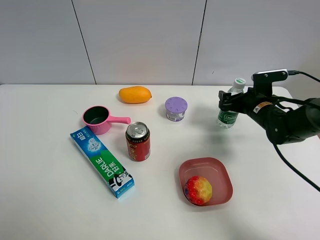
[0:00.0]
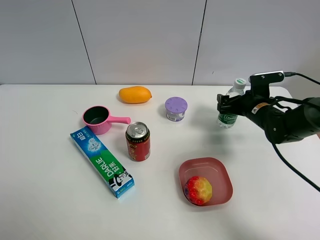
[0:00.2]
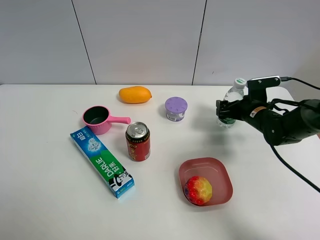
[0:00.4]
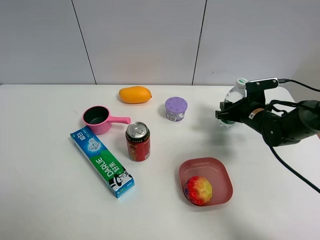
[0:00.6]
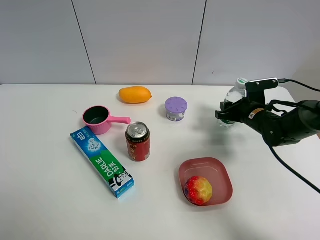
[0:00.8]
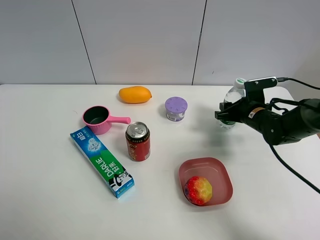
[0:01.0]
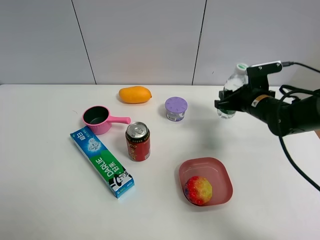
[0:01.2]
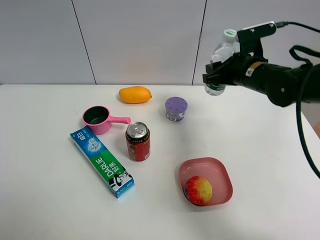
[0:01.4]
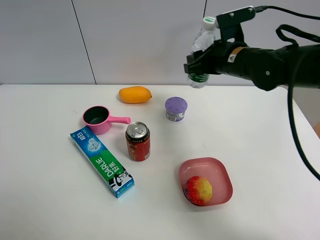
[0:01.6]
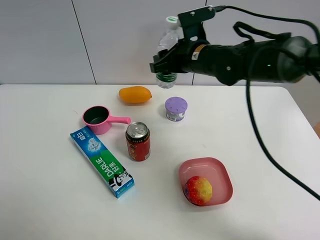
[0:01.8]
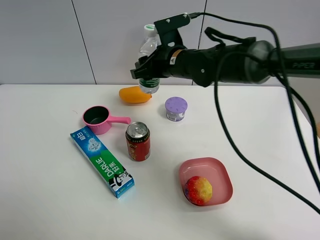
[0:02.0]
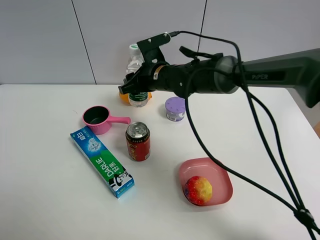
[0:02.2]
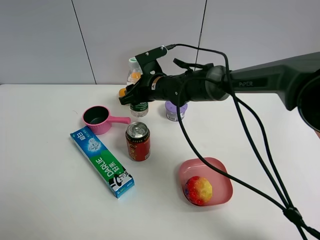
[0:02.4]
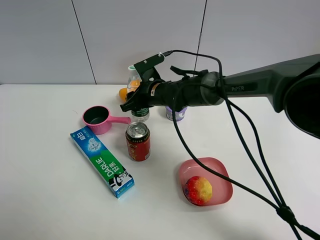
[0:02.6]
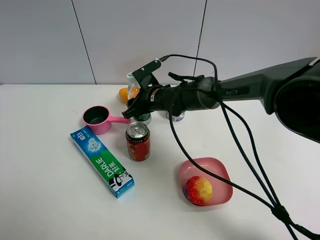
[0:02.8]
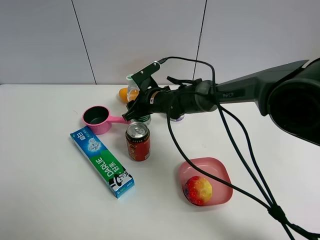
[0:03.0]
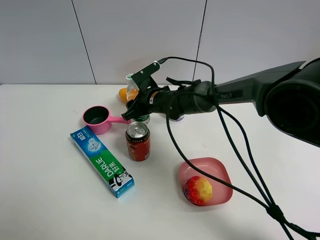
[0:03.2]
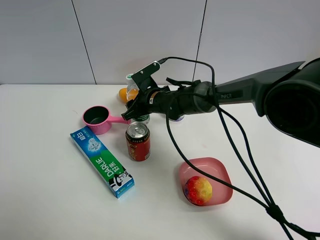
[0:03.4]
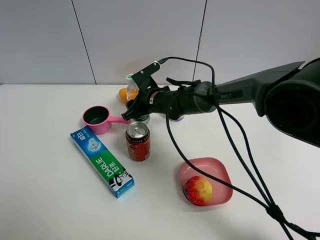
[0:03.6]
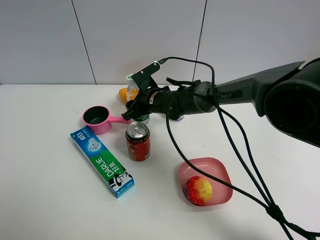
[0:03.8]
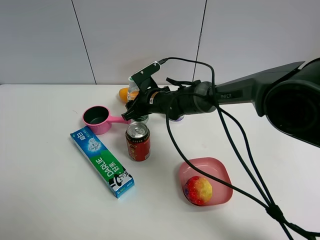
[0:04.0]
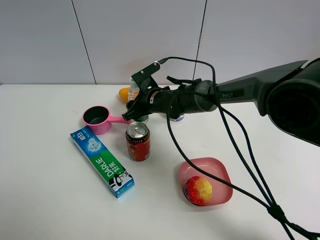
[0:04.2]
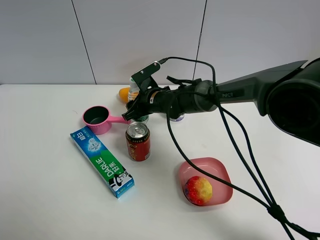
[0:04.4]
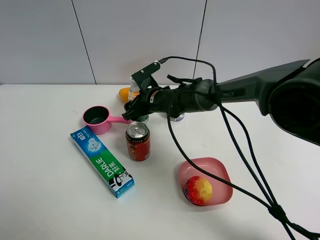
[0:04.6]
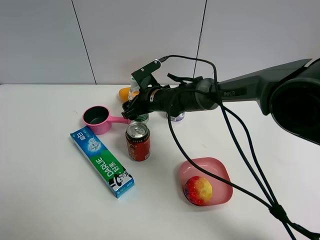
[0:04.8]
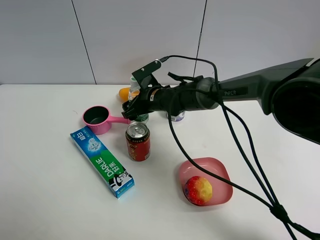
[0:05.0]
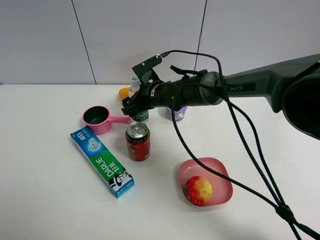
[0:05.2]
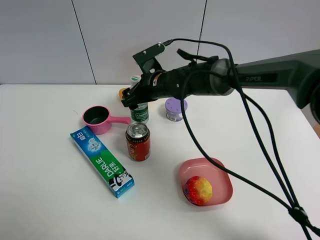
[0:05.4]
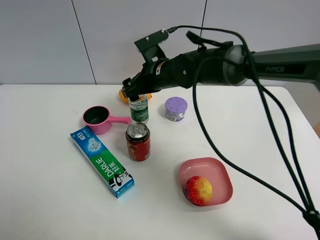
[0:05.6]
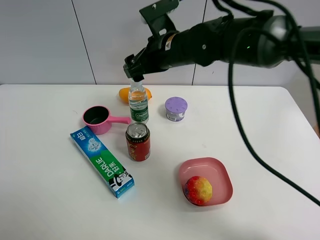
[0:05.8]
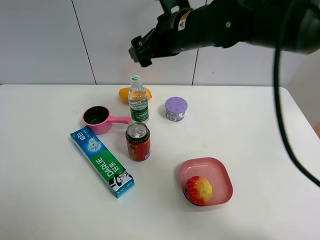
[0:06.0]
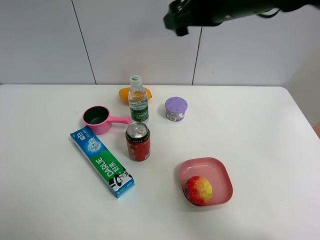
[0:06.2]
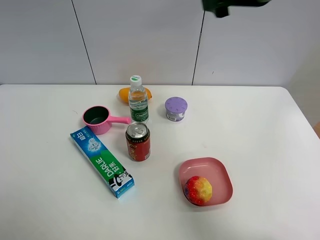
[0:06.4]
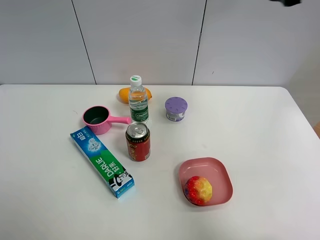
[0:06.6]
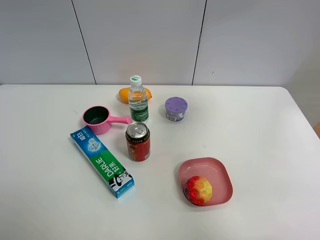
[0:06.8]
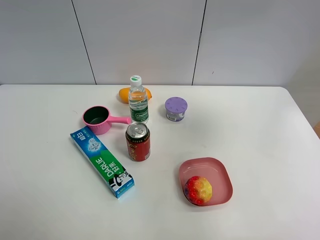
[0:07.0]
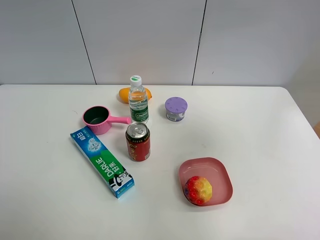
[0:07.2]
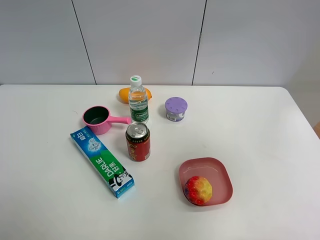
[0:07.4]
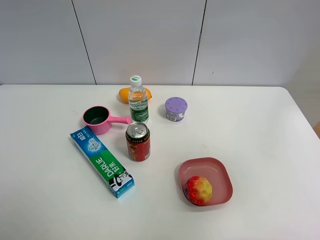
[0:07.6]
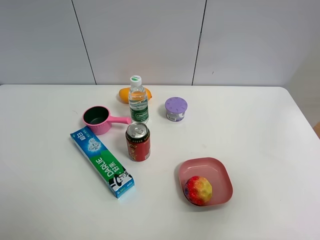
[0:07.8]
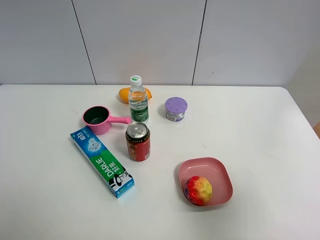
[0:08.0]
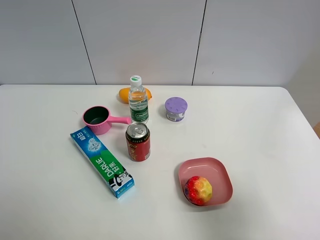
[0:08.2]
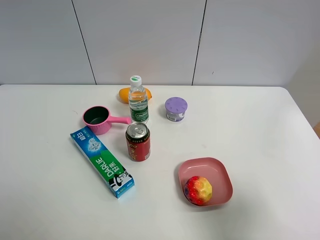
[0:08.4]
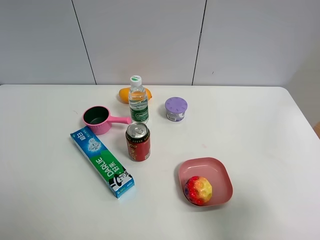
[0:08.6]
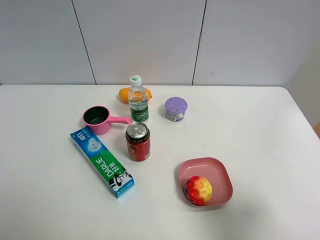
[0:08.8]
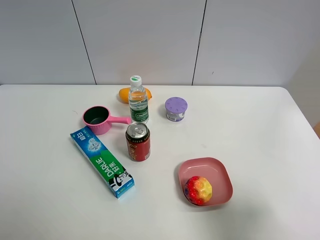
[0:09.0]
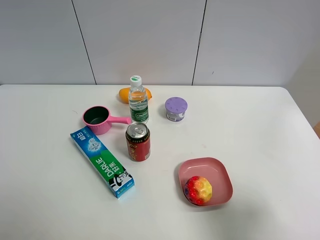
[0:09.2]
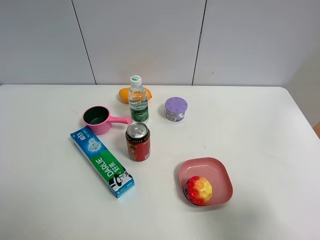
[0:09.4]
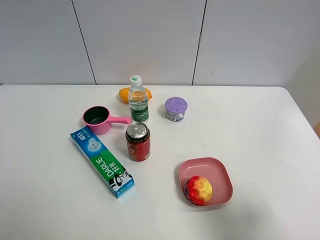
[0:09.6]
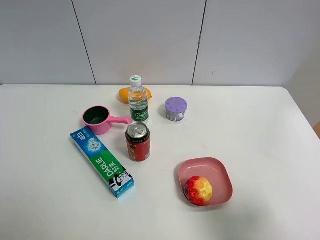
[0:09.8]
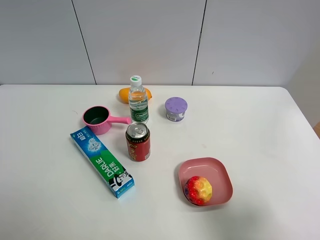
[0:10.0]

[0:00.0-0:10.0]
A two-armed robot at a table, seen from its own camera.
Task of the whole recording: the gripper move the object.
Step, 0:00.8 to 0:05.4: Place the YiBao mineral water on the table with the right gripper.
0:00.0 to 0:01.4: The right gripper heads upward and to the left, covering some 15 cm, and closes.
0:01.4 to 0:02.8: The right gripper shifts some 20 cm to the left and downward.
0:02.8 to 0:04.2: Both grippers stay about where they are.
0:04.2 to 0:05.8: The right gripper moves upward, some 15 cm.
0:05.8 to 0:07.2: The right gripper is displaced to the right, backward and upward by about 40 cm.
0:07.2 to 0:08.6: The right gripper moves downward and backward, some 25 cm.

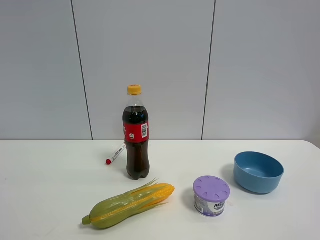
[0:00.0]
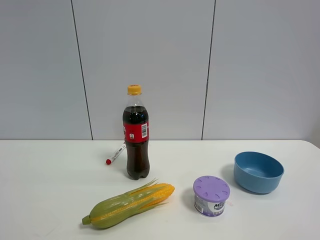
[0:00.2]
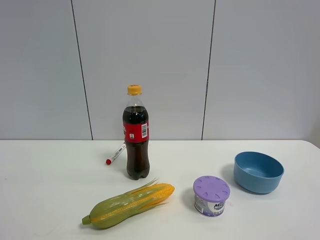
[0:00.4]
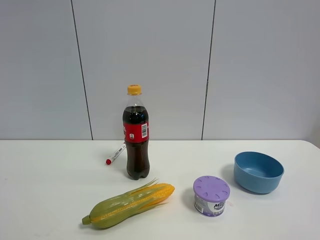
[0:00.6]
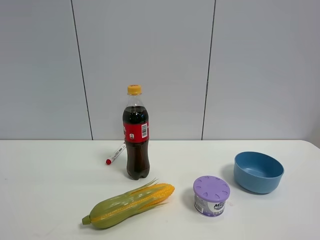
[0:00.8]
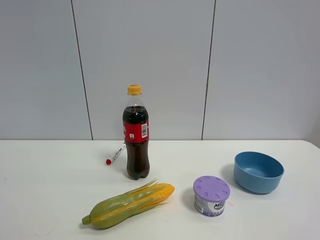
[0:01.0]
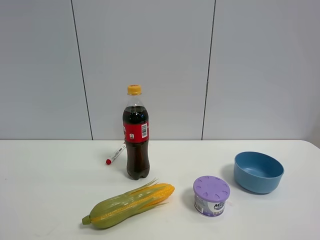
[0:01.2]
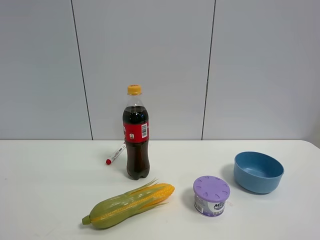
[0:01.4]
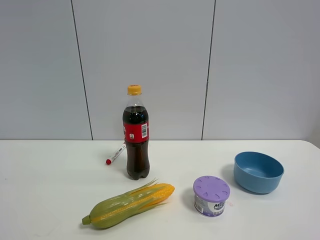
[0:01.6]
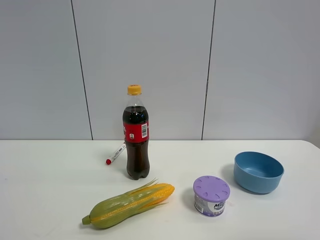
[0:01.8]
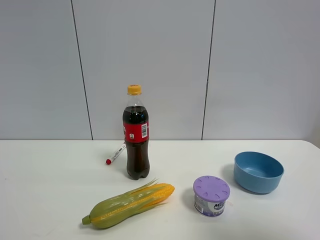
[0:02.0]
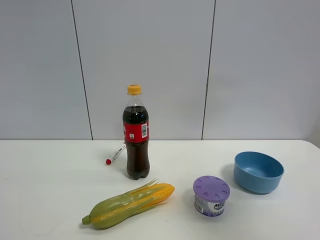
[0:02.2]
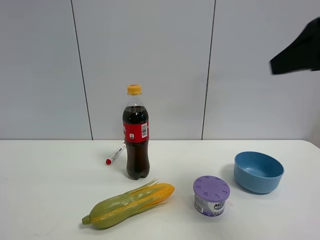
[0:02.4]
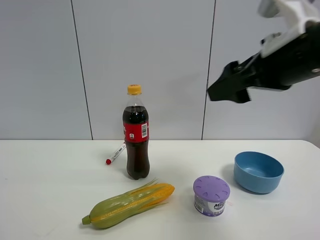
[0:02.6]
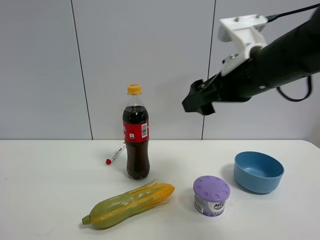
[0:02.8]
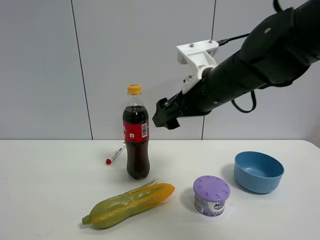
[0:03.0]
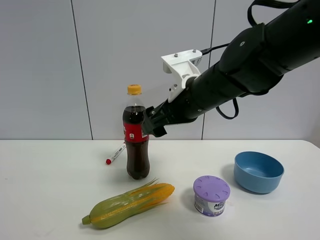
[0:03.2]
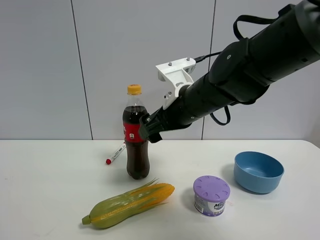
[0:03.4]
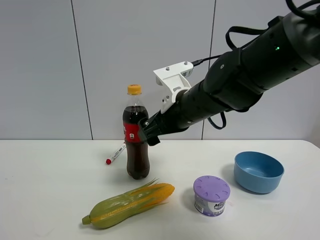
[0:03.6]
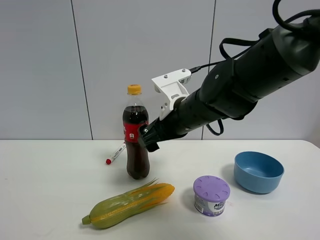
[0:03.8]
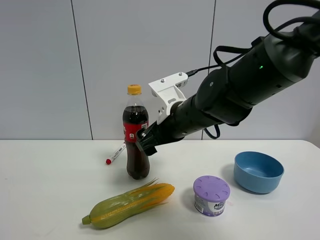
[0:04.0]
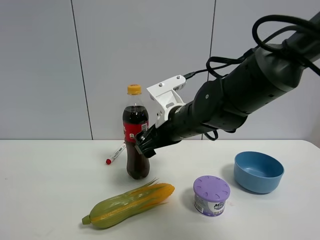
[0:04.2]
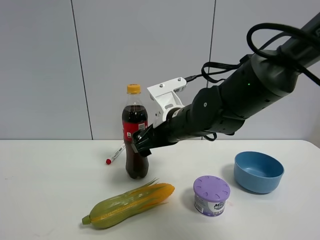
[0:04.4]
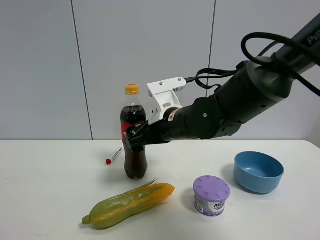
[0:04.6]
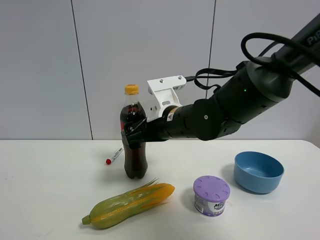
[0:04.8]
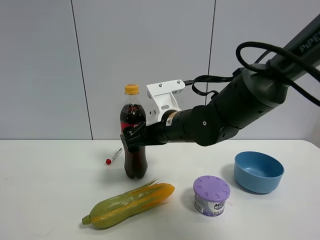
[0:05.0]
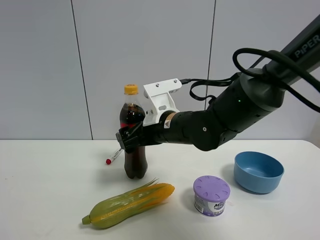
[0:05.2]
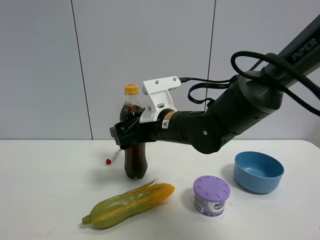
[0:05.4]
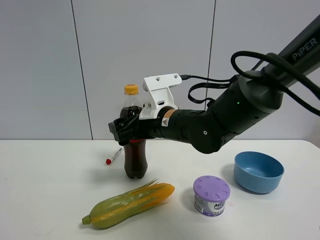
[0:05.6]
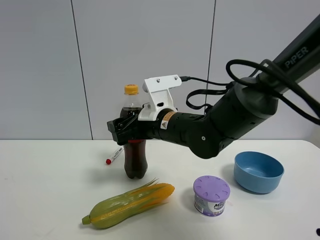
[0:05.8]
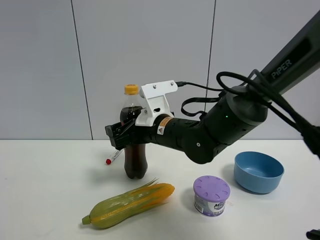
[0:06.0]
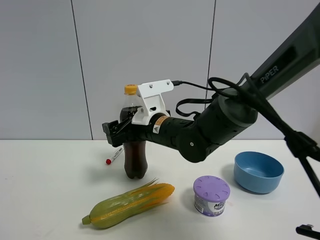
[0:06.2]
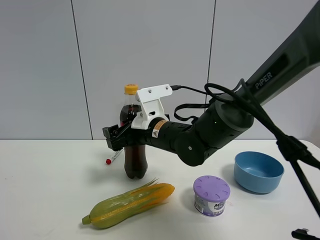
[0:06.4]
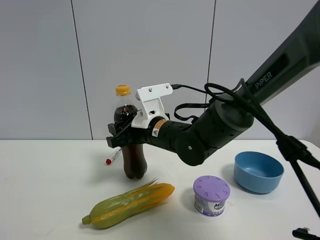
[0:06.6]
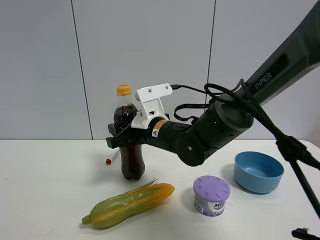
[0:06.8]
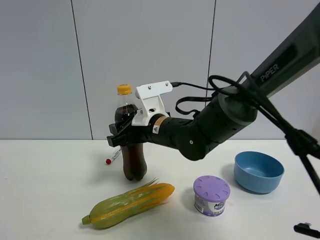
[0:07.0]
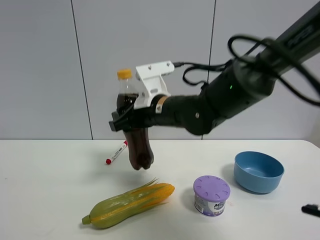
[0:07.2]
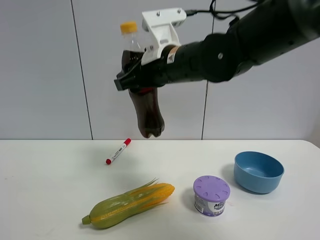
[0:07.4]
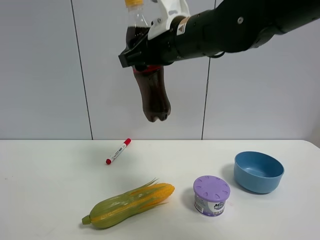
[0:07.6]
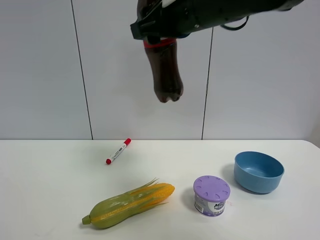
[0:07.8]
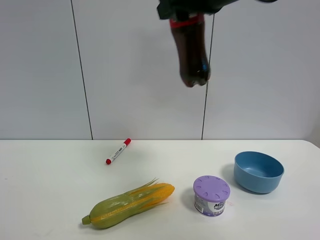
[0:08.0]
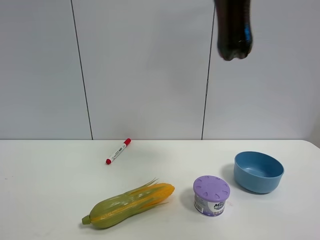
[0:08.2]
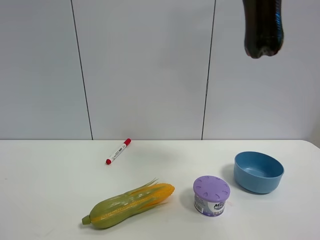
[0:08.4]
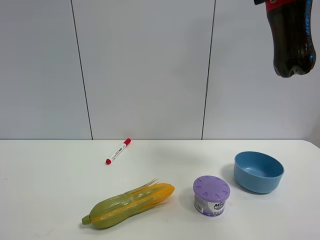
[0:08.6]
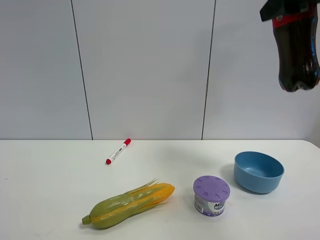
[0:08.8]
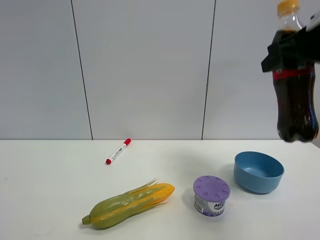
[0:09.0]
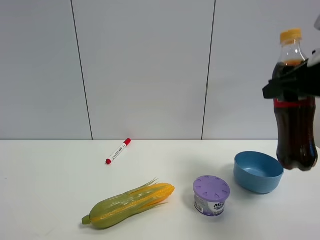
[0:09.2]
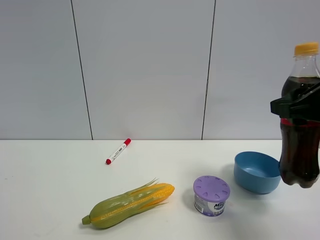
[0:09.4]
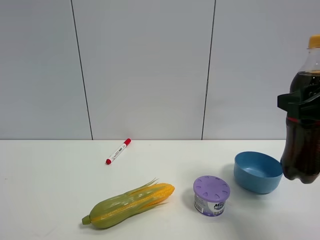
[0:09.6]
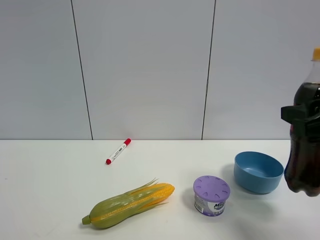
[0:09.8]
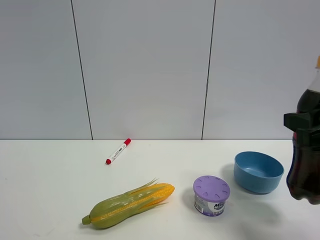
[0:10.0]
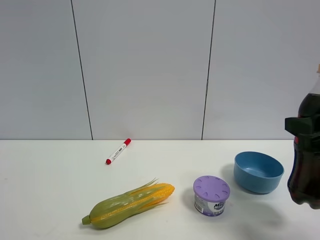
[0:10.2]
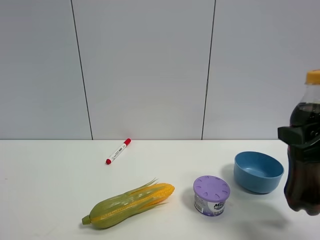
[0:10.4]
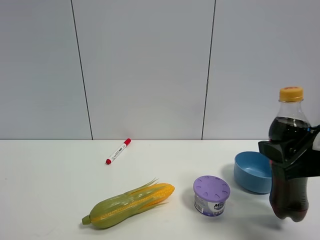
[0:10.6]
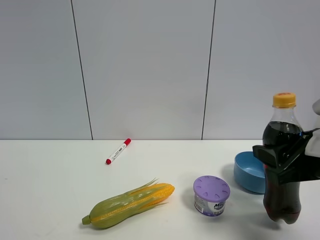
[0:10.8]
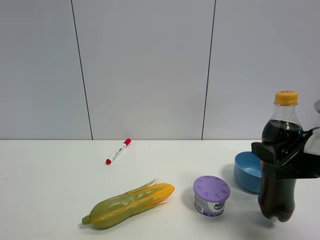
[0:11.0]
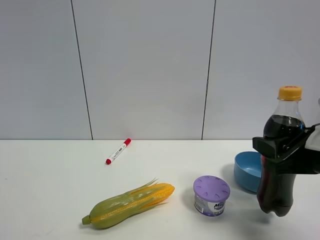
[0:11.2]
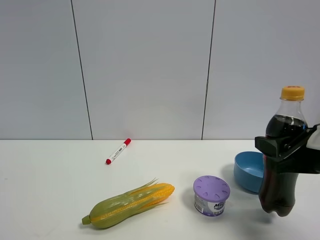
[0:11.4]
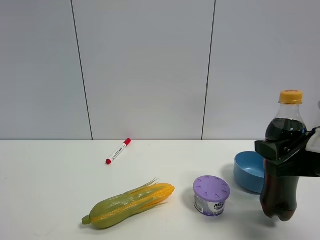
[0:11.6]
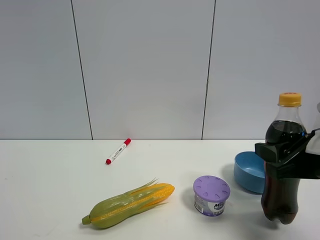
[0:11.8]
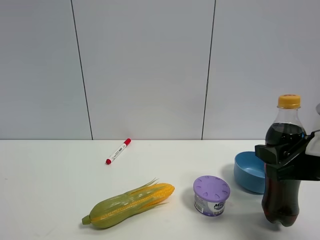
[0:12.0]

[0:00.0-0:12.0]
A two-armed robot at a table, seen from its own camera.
Task of the whole recording: the gripper move the object.
Step, 0:00.0 to 0:06.6: Grasp the coke with the right gripper.
0:01.6 to 0:03.0: The right gripper goes some 40 cm forward and to the left, and opens.
0:03.0 to 0:04.4: The right gripper shifts some 10 cm downward.
0:06.0 to 0:07.6: The right gripper shifts approximately 20 cm upward, and closes its fingers.
0:07.6 to 0:09.0: The right gripper goes roughly 20 cm to the right.
0:09.0 to 0:10.4: The right gripper travels downward and backward by about 15 cm.
0:10.4 to 0:12.0: There are only small adjustments of the grippers.
